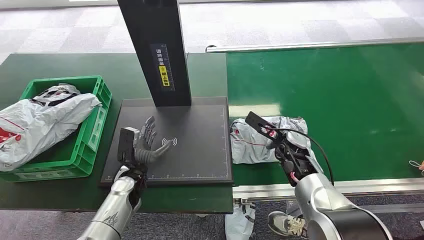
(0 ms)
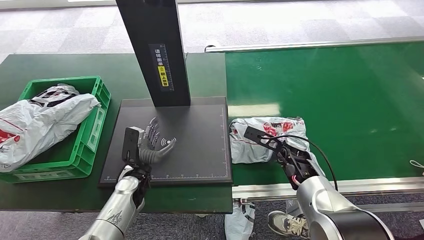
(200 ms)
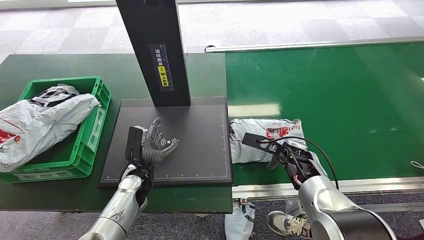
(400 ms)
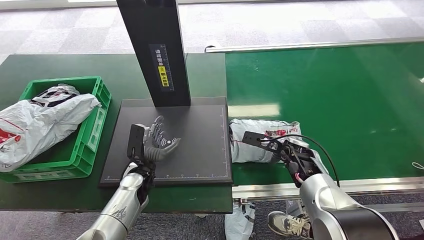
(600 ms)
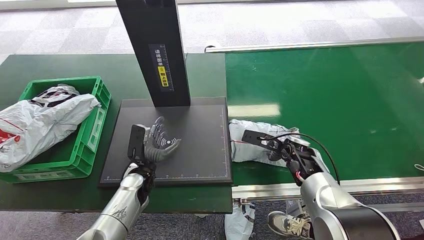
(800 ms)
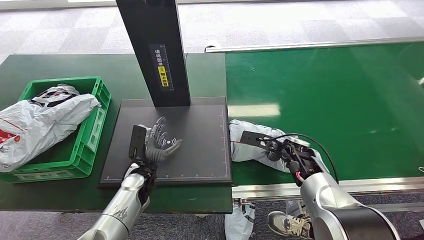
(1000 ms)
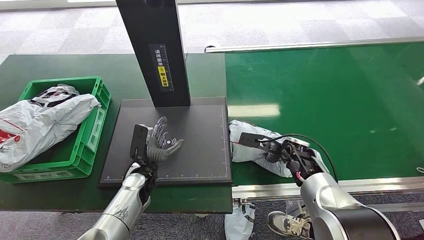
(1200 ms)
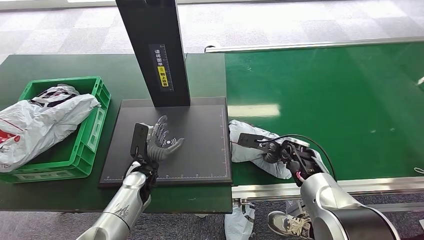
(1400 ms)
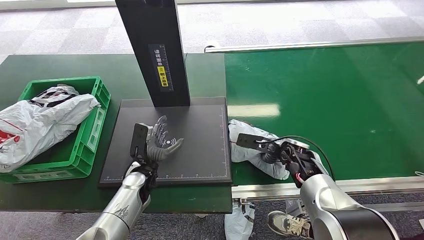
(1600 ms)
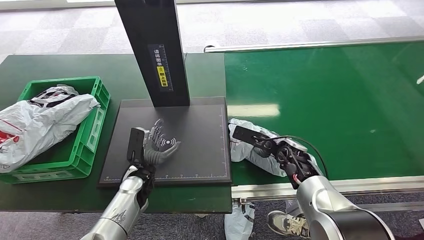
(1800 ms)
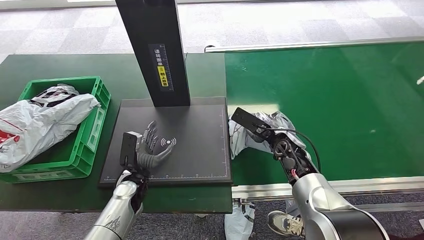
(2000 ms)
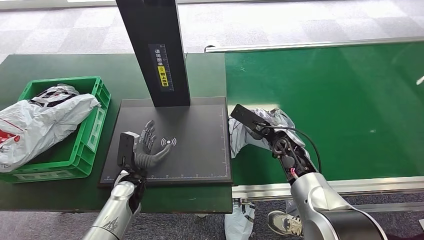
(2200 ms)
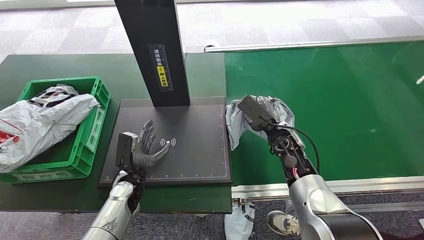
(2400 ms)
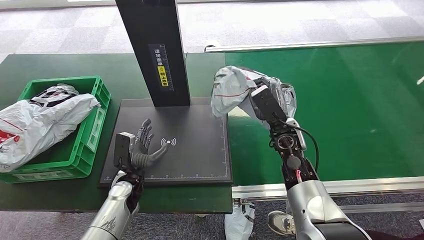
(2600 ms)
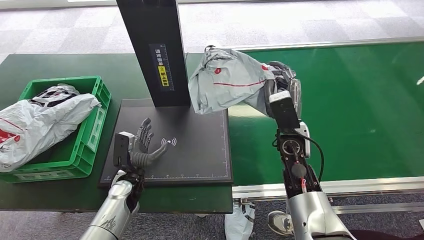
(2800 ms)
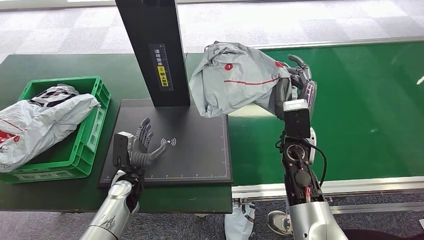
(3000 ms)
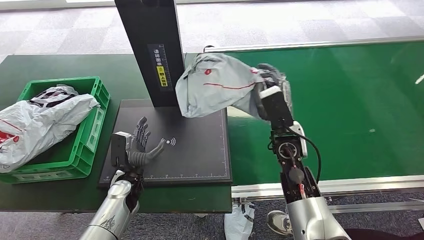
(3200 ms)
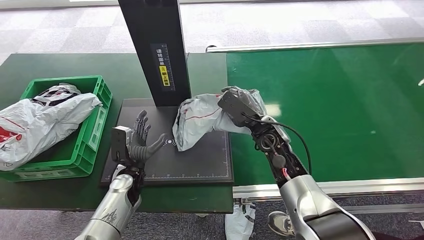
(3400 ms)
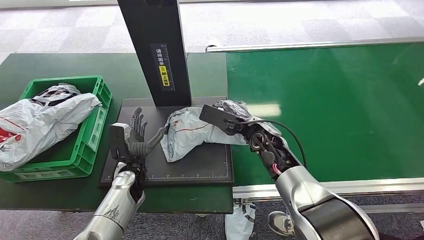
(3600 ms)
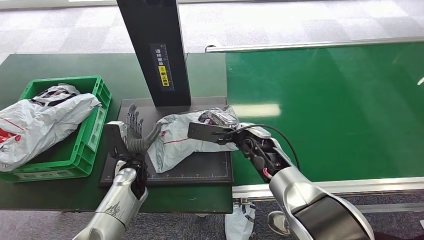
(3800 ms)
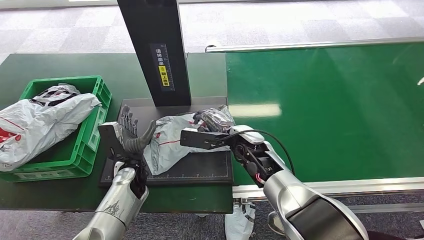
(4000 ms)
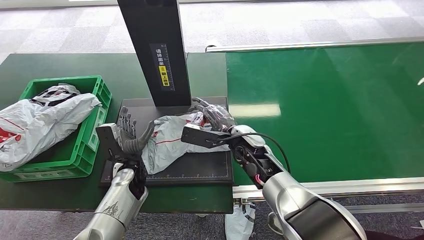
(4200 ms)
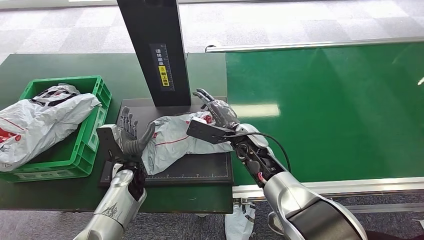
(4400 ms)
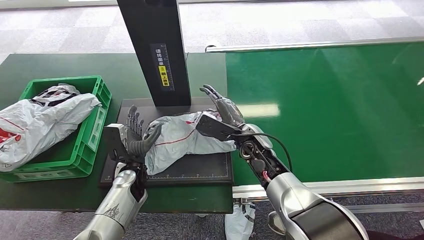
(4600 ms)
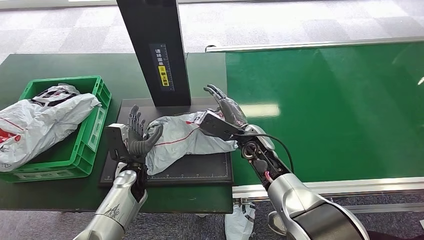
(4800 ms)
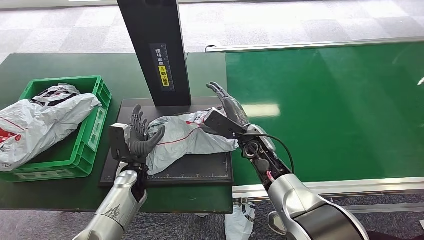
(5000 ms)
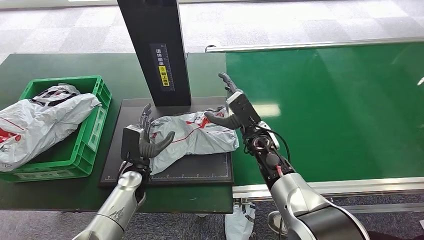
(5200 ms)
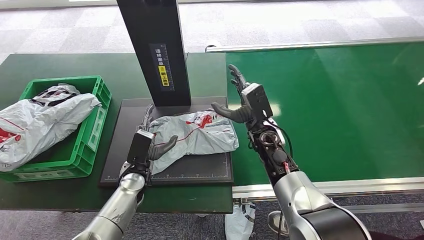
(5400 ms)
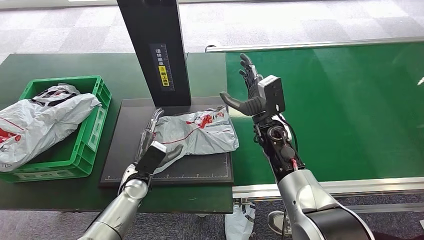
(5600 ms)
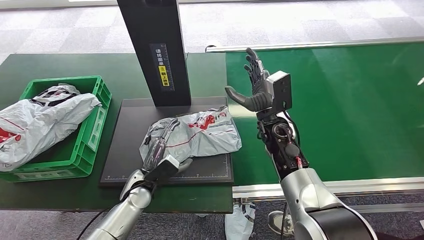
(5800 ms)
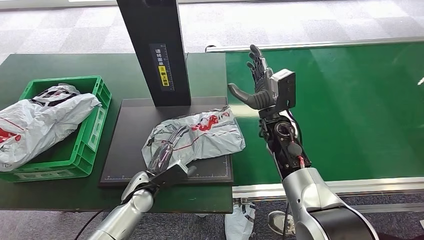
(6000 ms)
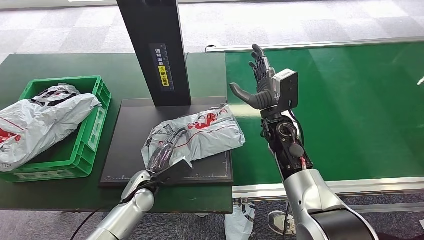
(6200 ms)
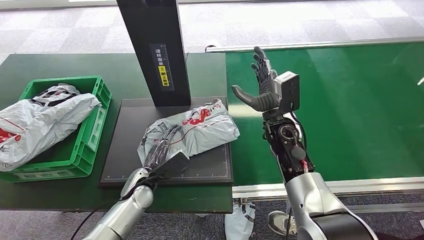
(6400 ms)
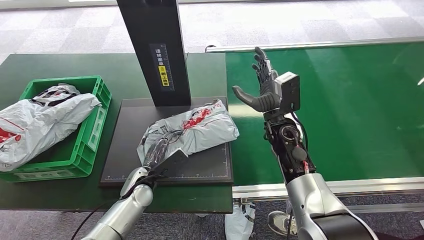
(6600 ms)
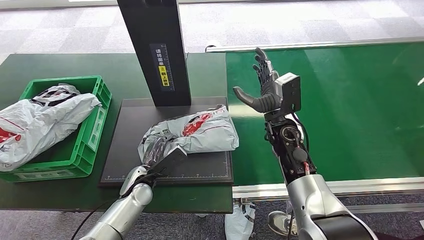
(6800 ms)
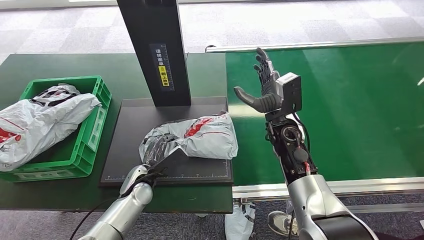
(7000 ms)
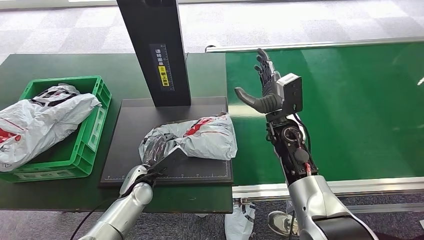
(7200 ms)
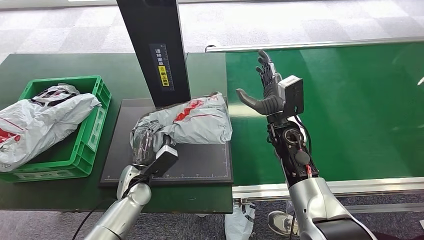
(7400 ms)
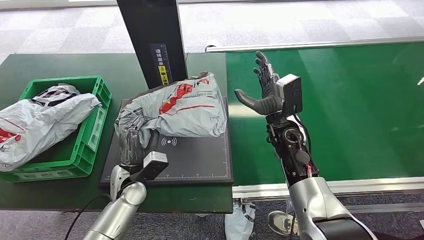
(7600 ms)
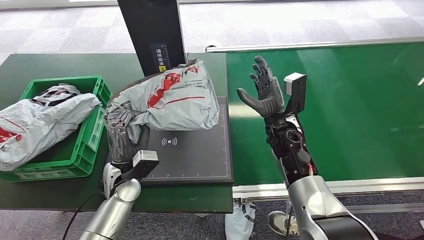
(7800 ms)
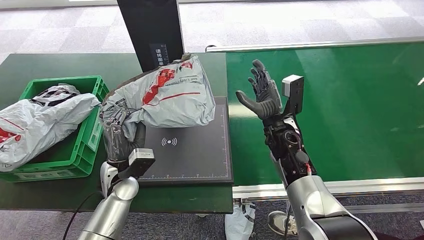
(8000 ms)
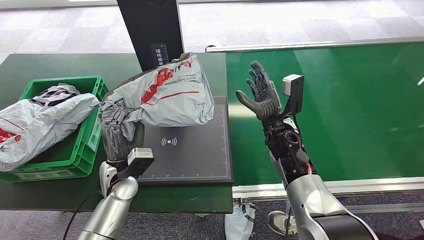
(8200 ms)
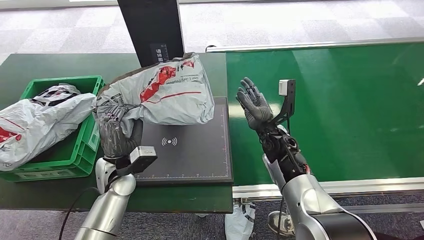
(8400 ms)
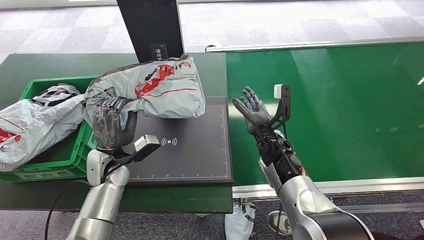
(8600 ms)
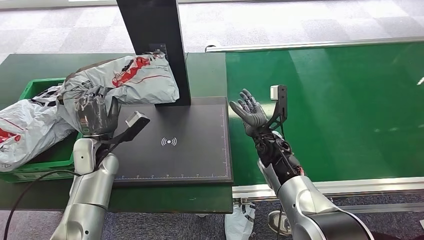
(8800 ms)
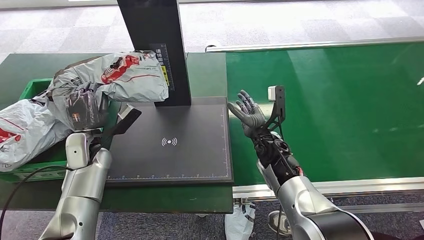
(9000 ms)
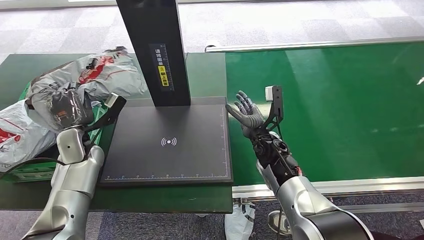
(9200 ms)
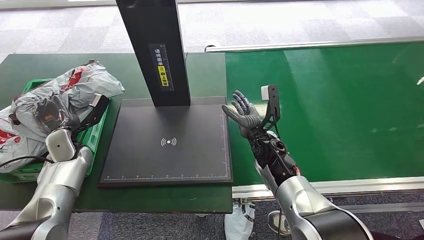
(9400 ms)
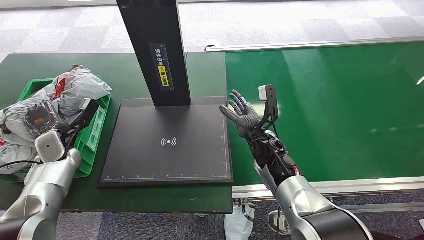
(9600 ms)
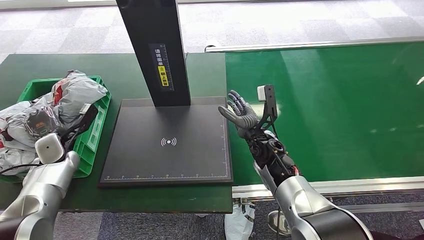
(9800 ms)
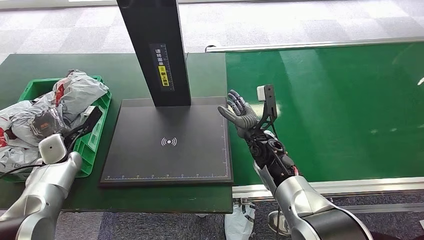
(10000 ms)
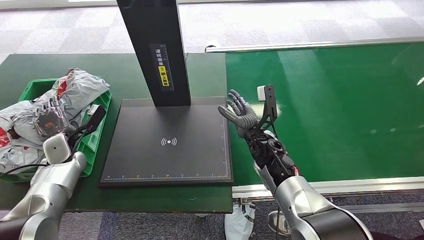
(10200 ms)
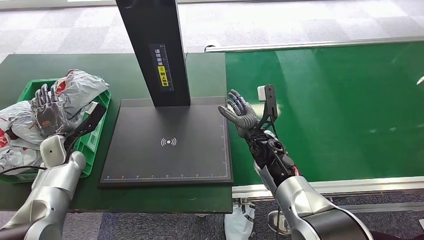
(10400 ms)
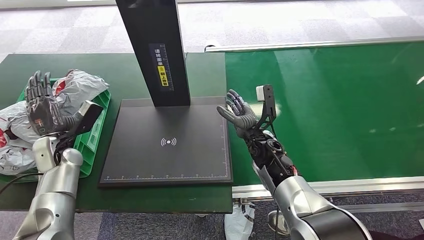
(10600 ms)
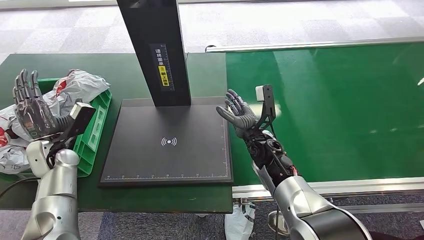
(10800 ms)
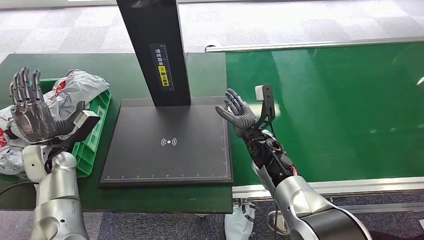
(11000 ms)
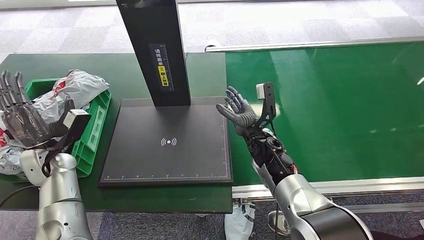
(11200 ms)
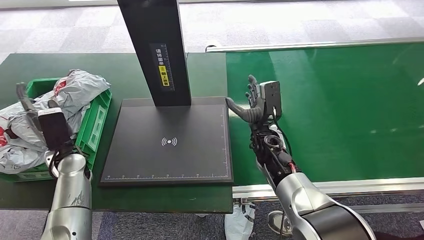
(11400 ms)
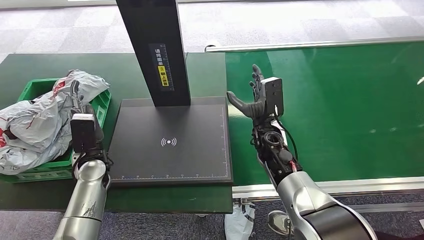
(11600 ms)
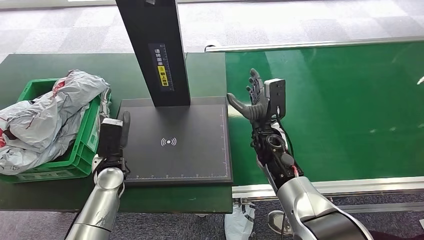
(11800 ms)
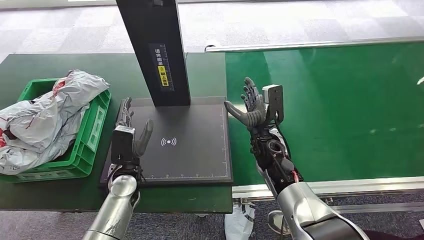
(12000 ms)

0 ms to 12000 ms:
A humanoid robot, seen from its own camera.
Task of the whole recording: Weigh the package on the weighing device and place it in the left basket.
Step, 0 ms to 2600 ms: Pick up the package from the conveyor belt.
Step, 3200 ms to 5400 ms: Place the package onto the inbound machine.
Step, 5600 ms to 8400 ms: Pick up the package from the inbound machine.
Step, 8600 ms to 11800 ms: Place the package into the parcel locker.
1600 ms to 3000 ms: The right hand shifts approximately 10 cm upward.
4400 ms to 6000 ms: The right hand travels to the right by roughly 5 cm.
10400 ms to 12000 ms: The left hand travels to the right by approximately 20 cm.

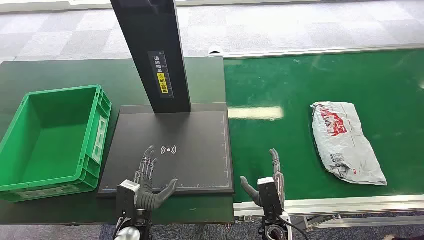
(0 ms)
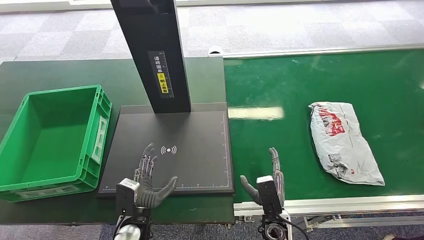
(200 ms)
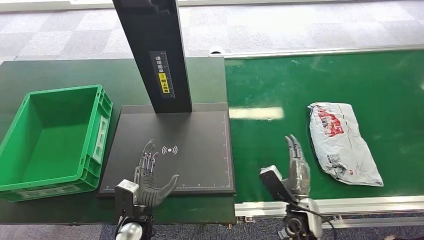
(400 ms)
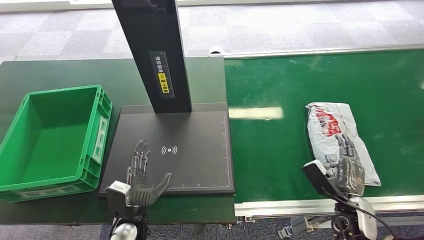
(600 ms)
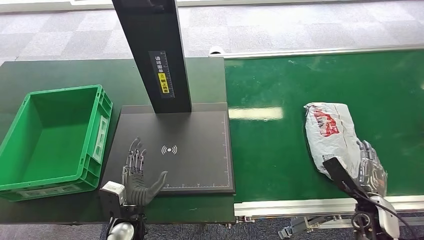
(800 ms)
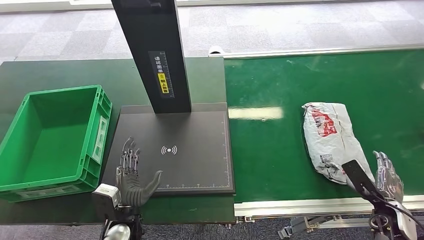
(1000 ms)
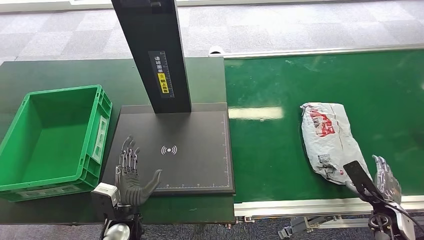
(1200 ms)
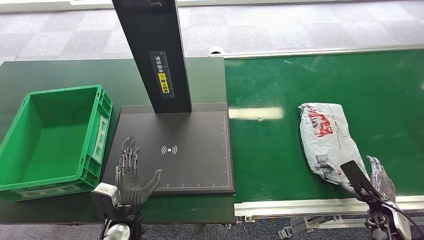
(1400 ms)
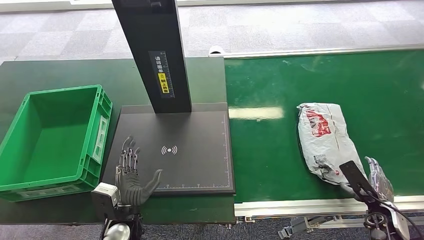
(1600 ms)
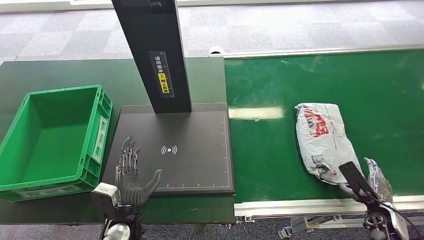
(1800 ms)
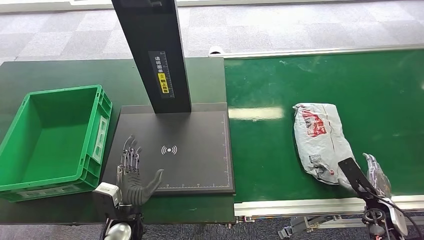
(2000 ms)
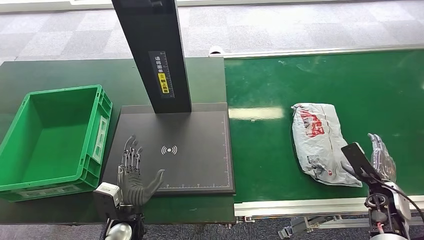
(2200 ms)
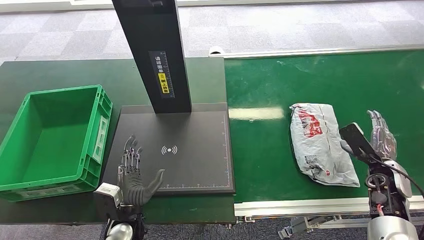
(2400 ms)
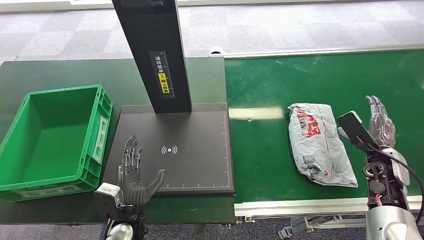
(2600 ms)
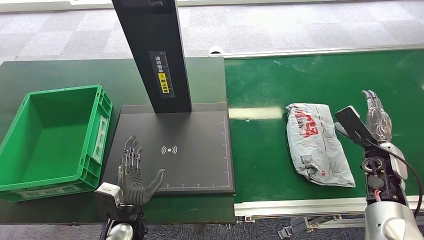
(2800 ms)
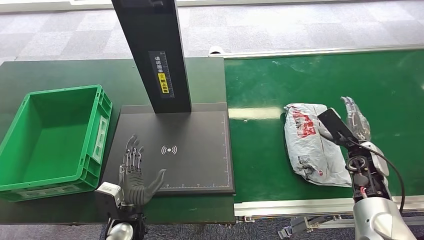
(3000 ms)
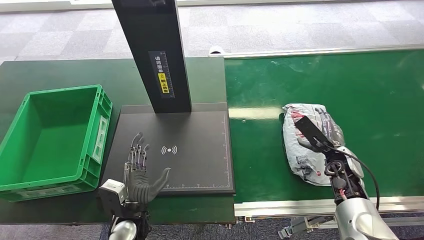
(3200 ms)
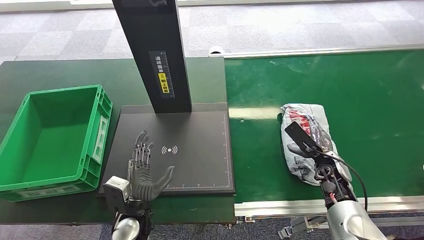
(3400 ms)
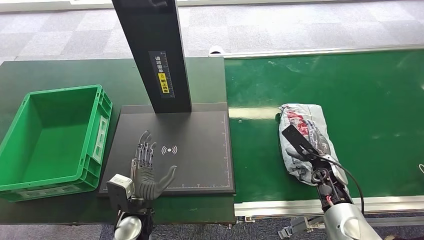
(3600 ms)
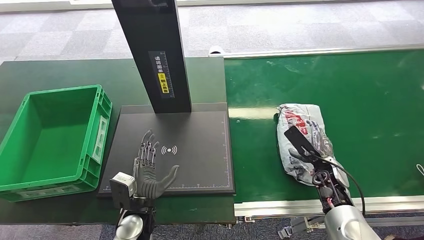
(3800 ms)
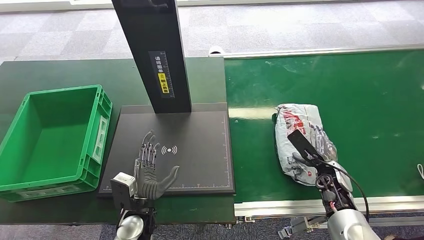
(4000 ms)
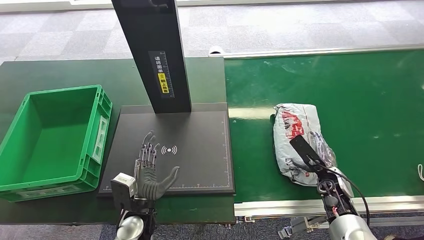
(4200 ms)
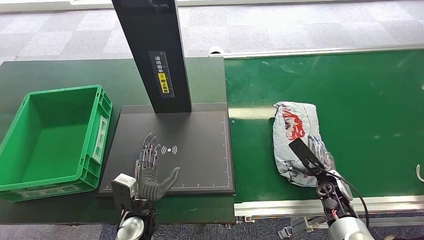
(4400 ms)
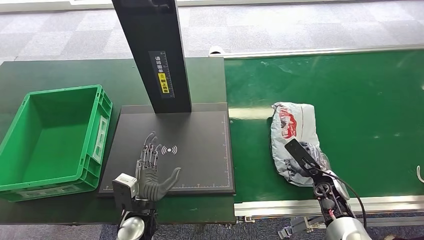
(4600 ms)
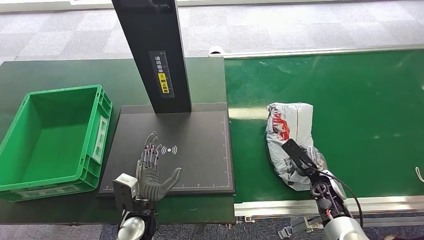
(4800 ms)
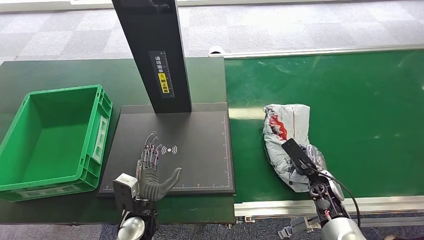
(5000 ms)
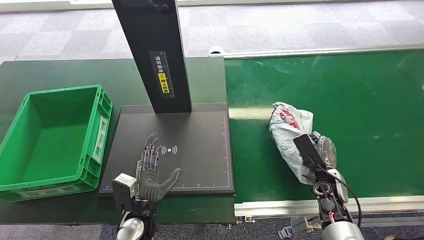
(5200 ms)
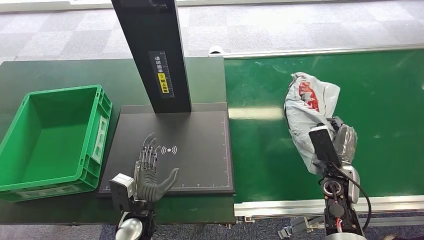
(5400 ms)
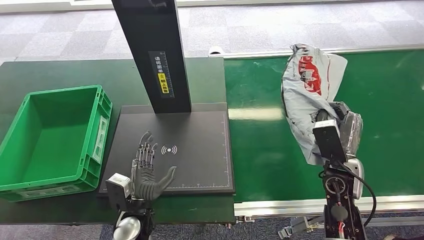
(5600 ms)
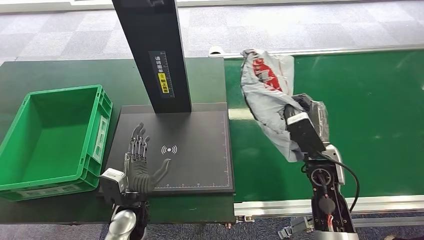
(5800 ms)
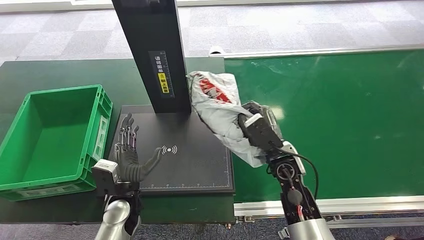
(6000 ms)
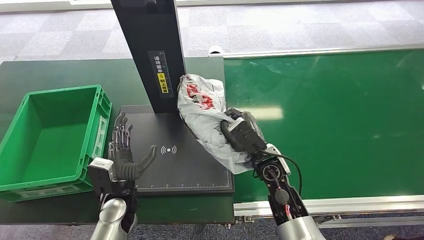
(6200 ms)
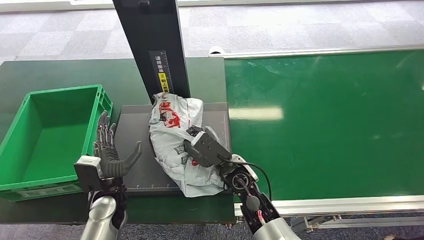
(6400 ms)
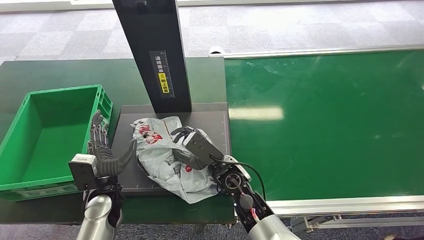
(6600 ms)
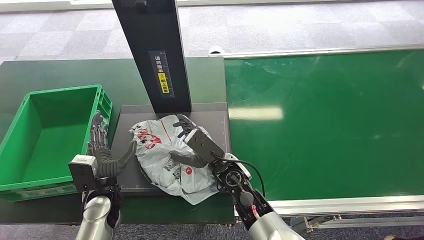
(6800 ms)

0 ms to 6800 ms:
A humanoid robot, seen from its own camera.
Task of the whole recording: Weigh the package on the weighing device and place it in the left basket.
Step, 0 ms to 5000 ms: Pick up the package from the conveyor belt.
1400 ms to 2800 ms: The right hand travels forward and upward by roughly 15 cm.
2800 ms to 4000 ms: The right hand travels to the left and downward by approximately 10 cm.
